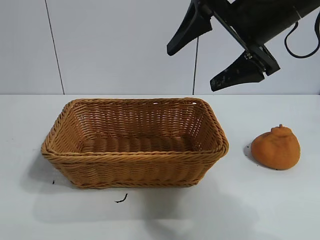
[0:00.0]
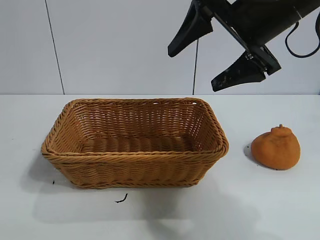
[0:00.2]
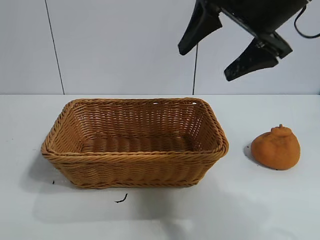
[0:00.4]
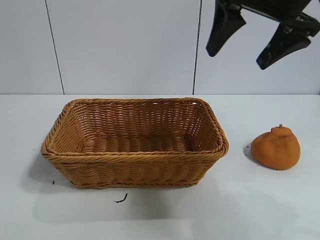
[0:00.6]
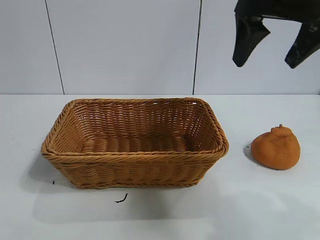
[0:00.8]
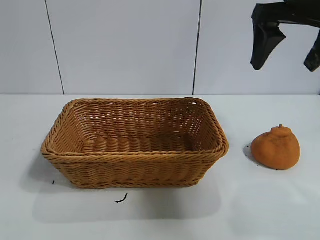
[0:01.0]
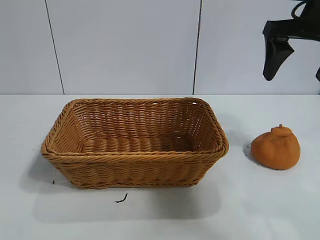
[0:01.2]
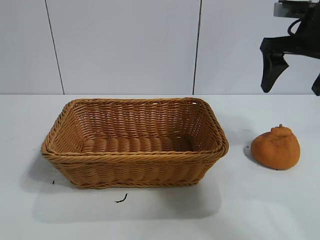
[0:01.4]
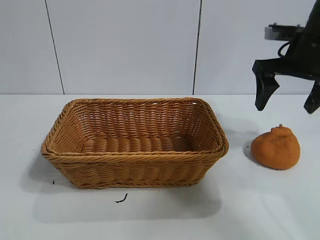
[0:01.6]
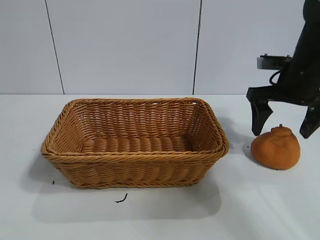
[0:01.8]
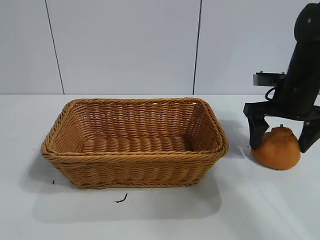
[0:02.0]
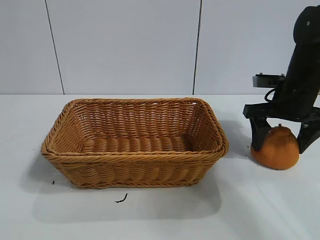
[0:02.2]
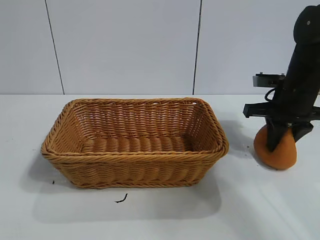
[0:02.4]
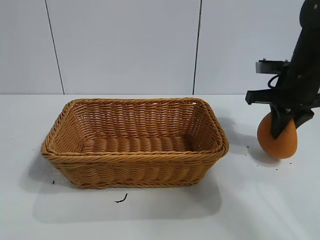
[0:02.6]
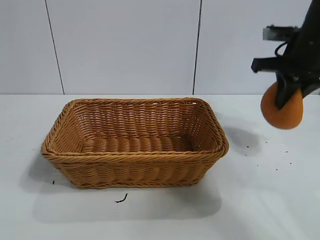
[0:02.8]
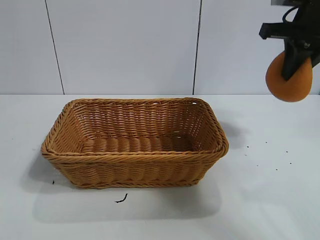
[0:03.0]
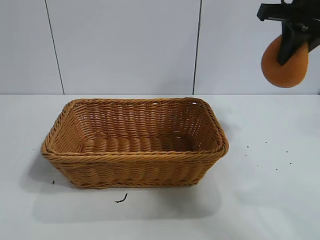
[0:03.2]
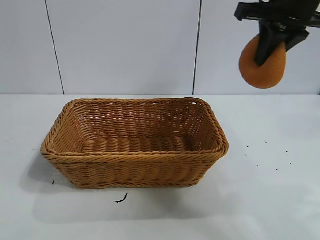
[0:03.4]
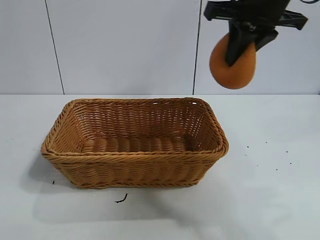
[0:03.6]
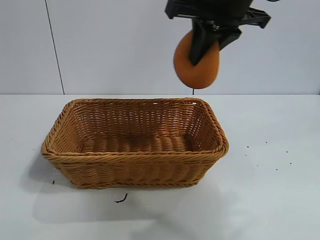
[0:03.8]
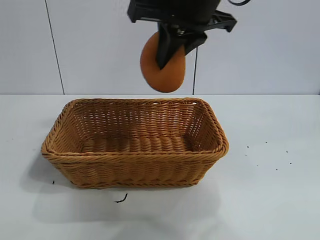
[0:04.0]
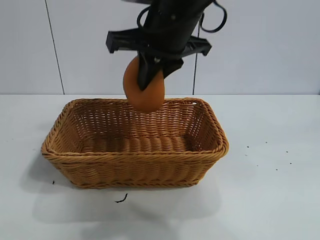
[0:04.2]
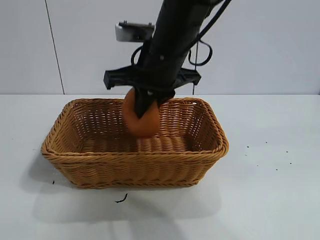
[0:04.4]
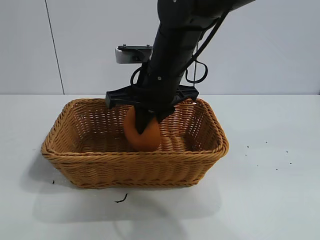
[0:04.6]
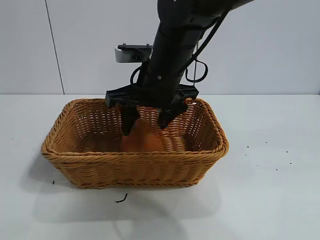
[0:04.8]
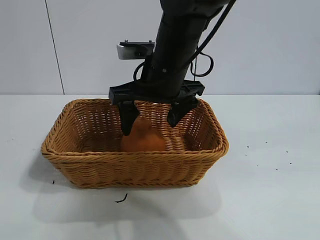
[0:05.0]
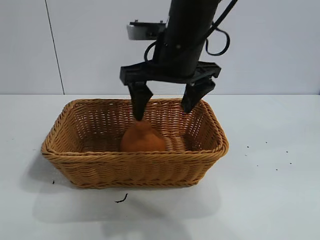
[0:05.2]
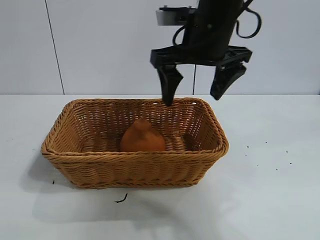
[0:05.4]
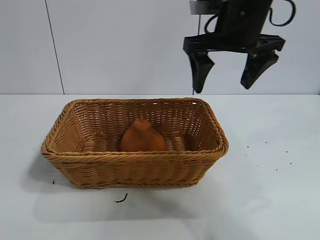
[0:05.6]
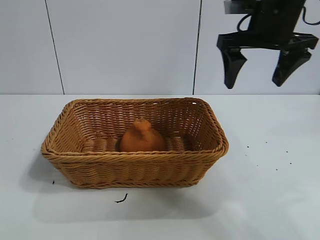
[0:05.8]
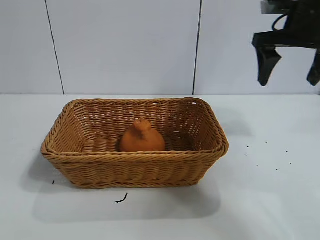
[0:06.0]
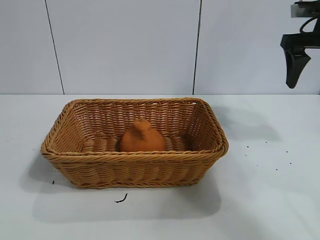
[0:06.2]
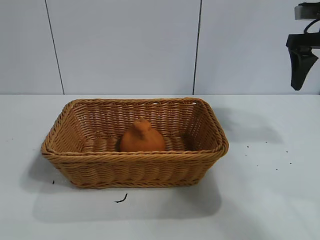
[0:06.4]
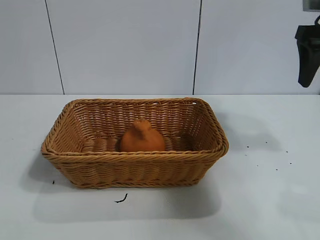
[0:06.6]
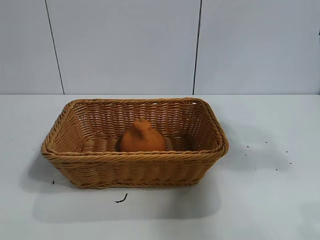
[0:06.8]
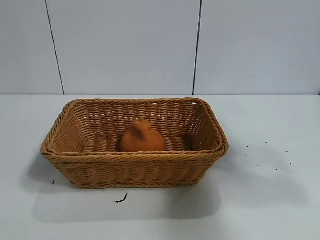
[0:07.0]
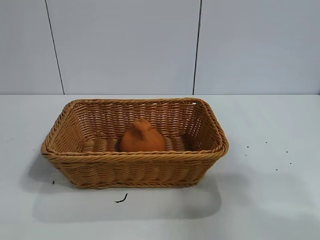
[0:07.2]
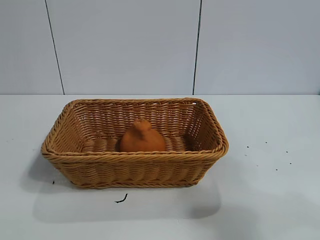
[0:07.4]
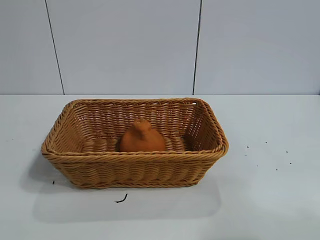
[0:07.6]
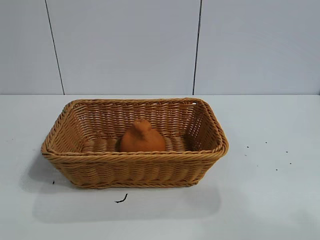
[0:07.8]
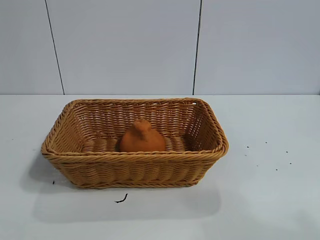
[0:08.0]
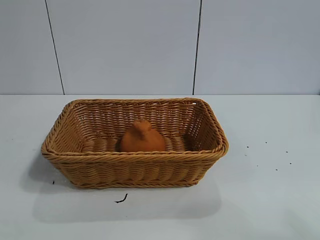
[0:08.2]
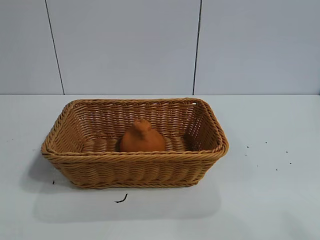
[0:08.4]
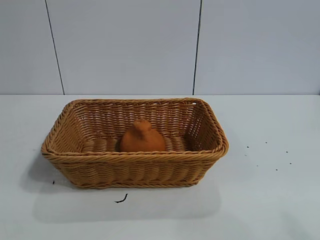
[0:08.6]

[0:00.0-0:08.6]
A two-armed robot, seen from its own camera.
Task of the whole recording: pick up the orange and put it into the basket.
Step, 0:00.0 to 0:02.4: Grasp the orange with right gripper.
Step, 0:02.6 to 0:04.8: Place the orange in the basket with right gripper.
